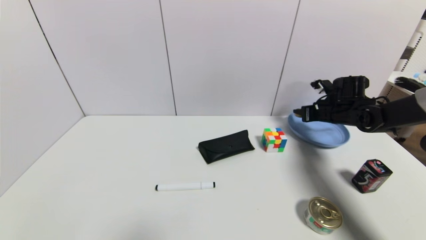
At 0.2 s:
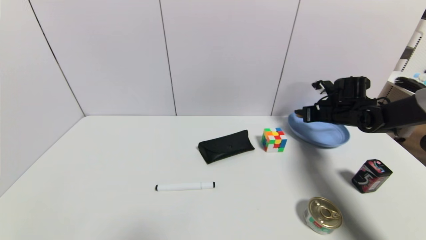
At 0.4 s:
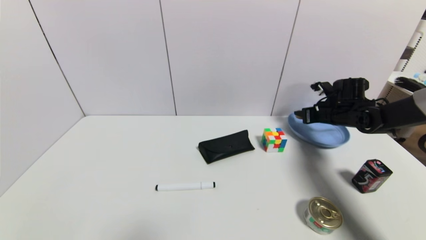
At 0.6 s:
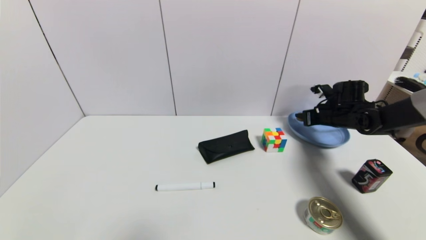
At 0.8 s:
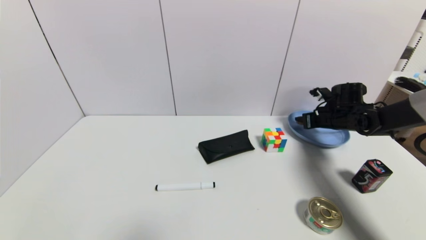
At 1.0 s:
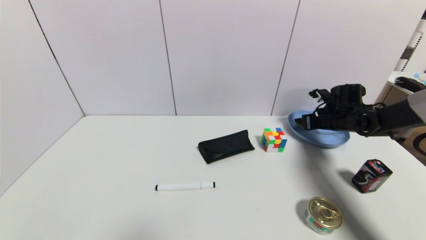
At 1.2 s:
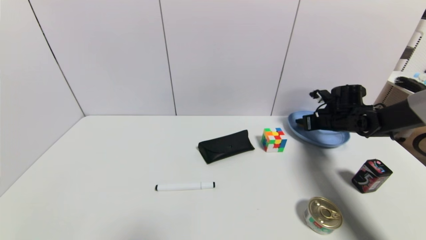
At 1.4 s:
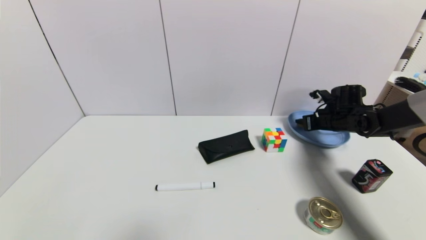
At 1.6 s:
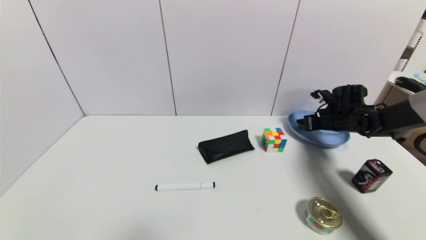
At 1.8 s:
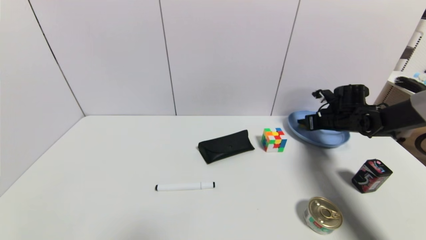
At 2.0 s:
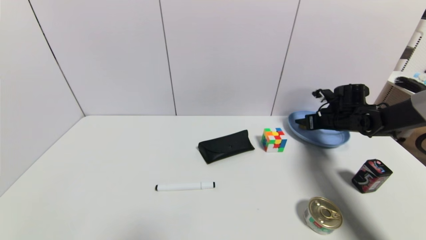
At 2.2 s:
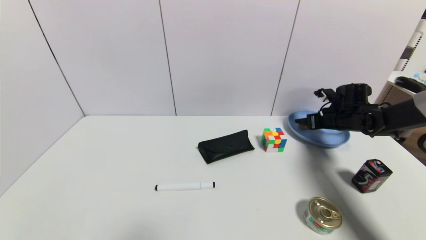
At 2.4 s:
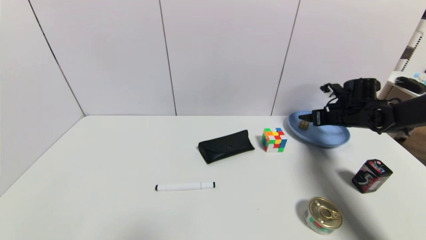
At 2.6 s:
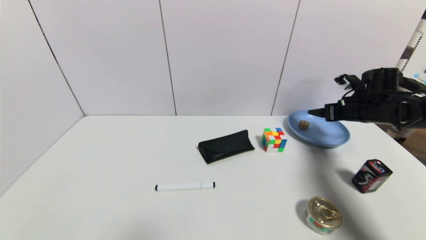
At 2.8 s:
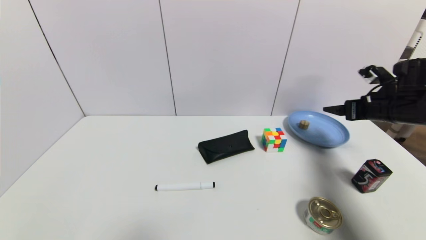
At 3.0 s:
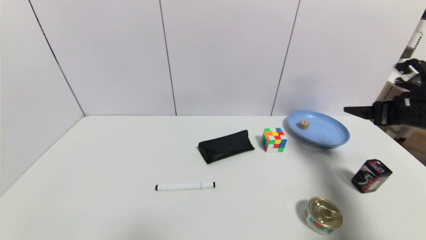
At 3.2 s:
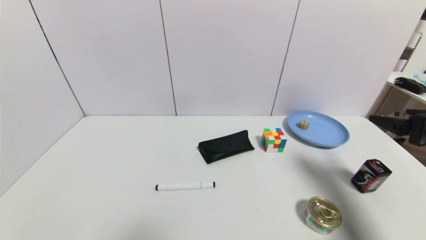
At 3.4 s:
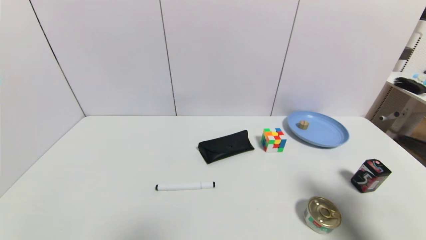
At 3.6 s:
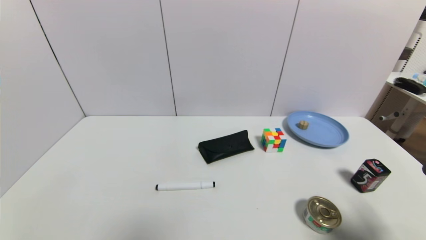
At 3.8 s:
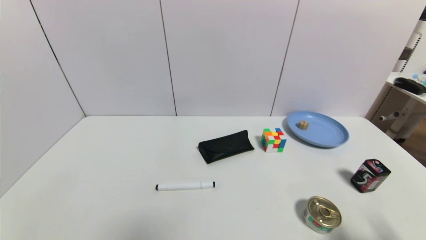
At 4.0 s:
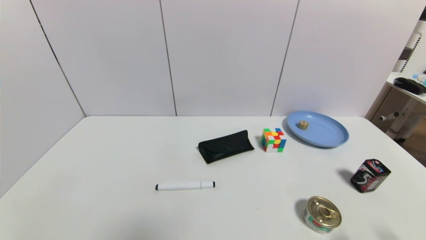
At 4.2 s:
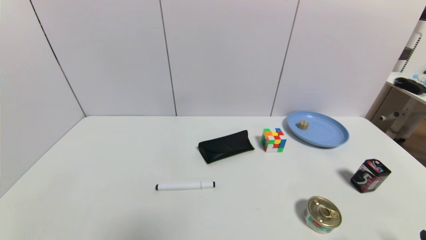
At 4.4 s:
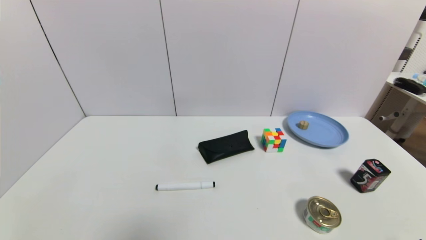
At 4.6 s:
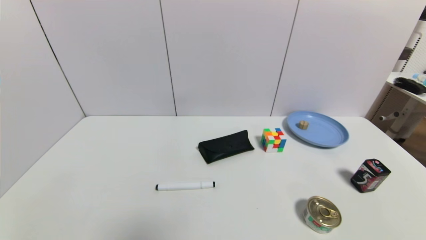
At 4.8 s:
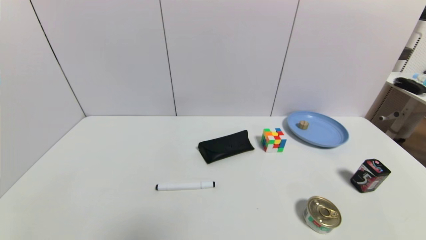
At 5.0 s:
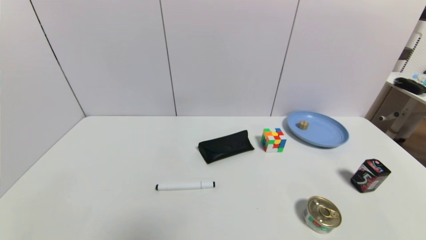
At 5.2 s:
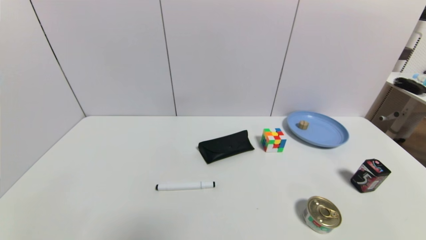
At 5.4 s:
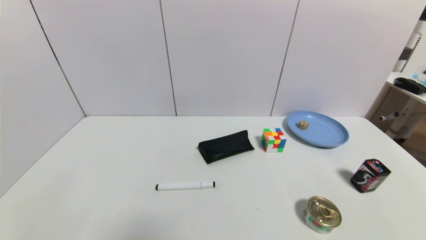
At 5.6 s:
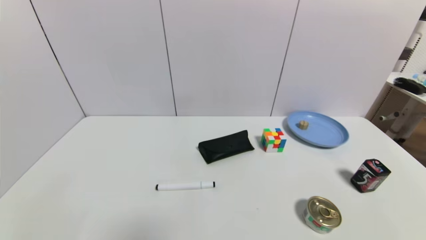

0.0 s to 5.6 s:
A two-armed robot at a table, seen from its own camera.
Task of the whole recording: use a gripper to pick the target object and place on the blue plate.
Step, 0.0 to 3.0 s: Place the round wooden block on the blue plate with the right gripper.
0.0 to 1.4 s: There are only small adjustments of the grippers.
1.4 to 2.8 s: The right gripper is displaced backward and upward by about 15 cm, and opens.
2.8 to 4.2 s: The right gripper travels backward by some 35 cm.

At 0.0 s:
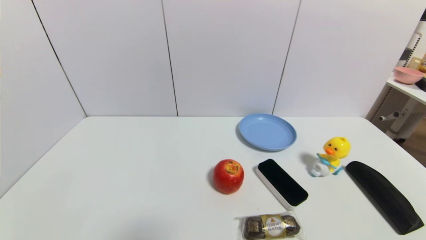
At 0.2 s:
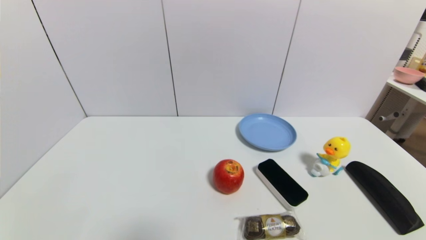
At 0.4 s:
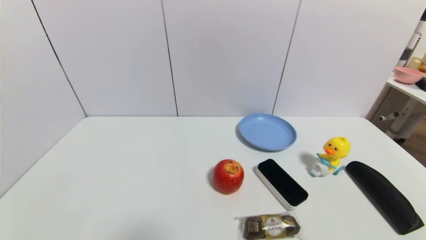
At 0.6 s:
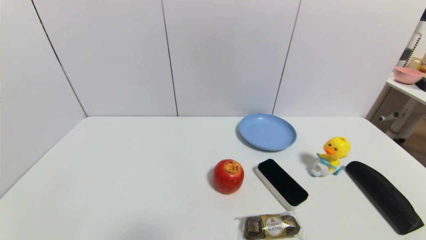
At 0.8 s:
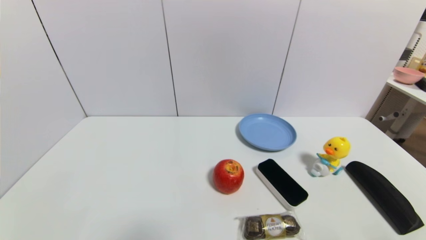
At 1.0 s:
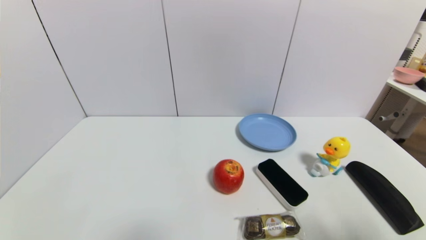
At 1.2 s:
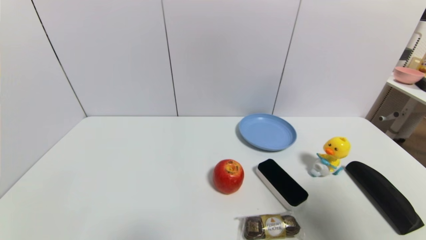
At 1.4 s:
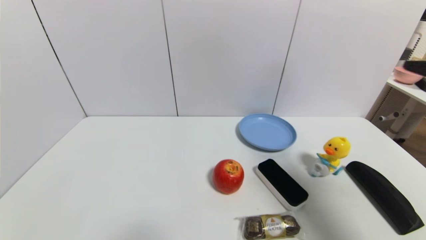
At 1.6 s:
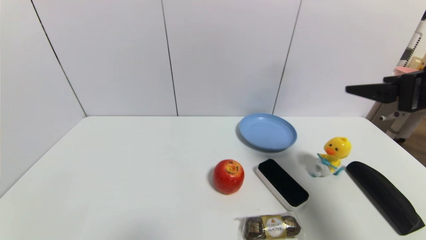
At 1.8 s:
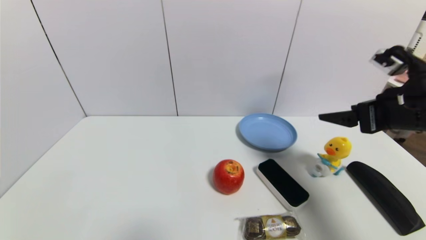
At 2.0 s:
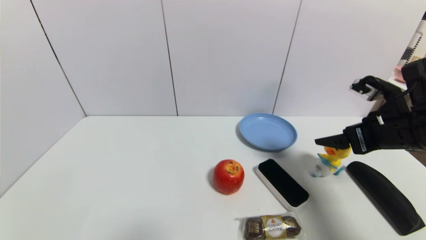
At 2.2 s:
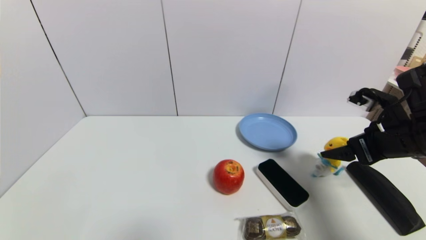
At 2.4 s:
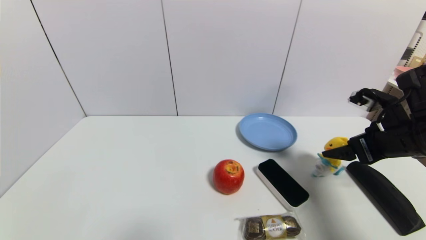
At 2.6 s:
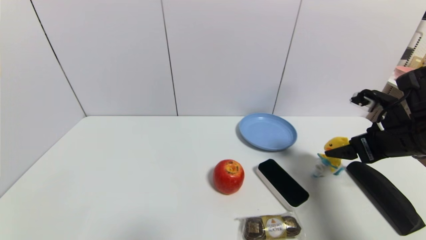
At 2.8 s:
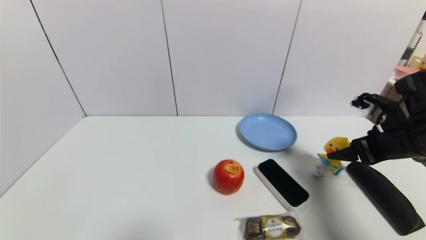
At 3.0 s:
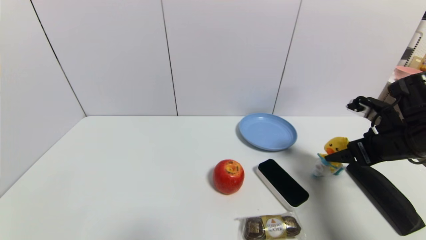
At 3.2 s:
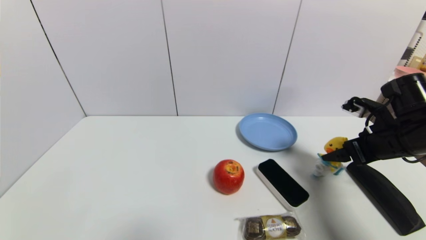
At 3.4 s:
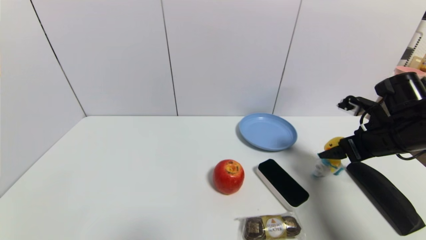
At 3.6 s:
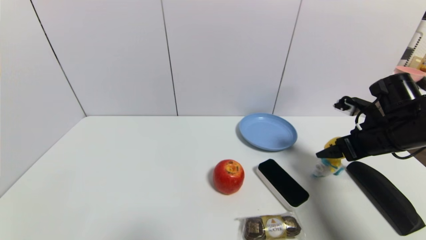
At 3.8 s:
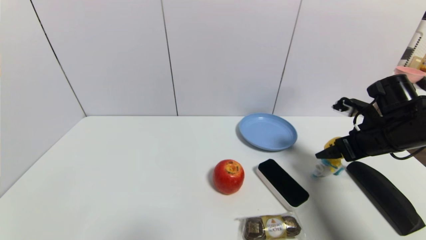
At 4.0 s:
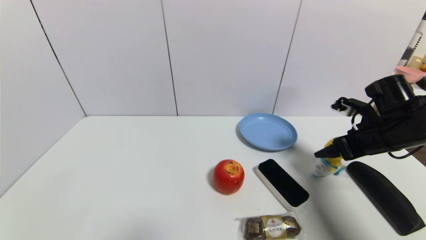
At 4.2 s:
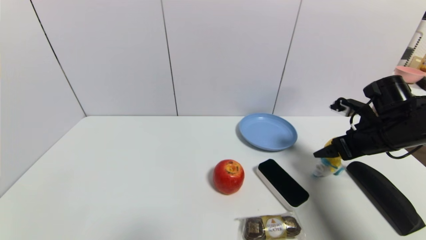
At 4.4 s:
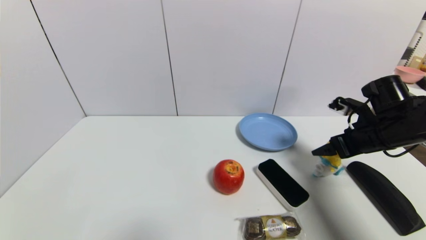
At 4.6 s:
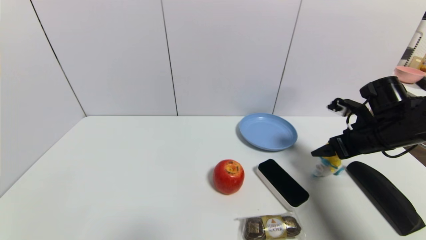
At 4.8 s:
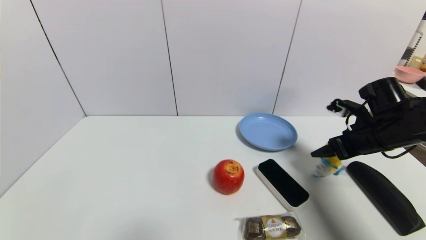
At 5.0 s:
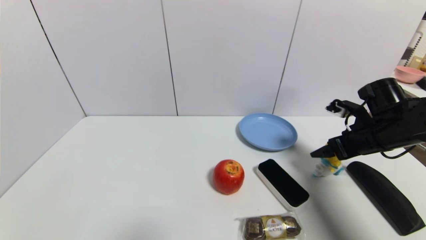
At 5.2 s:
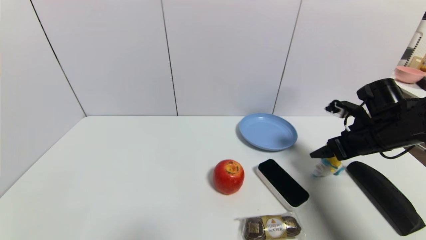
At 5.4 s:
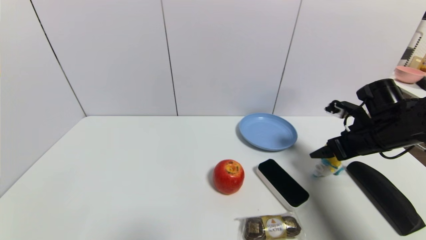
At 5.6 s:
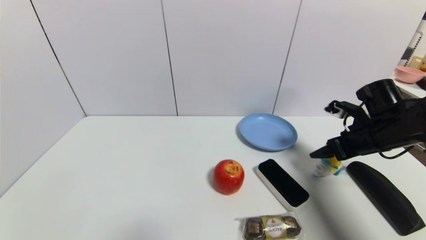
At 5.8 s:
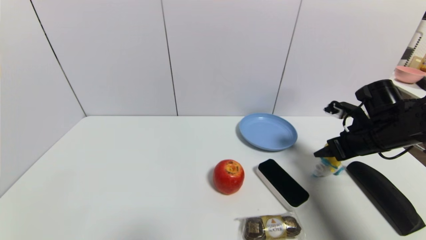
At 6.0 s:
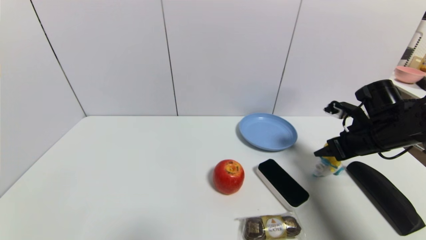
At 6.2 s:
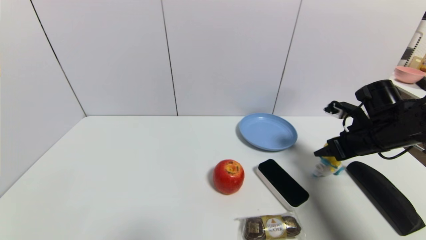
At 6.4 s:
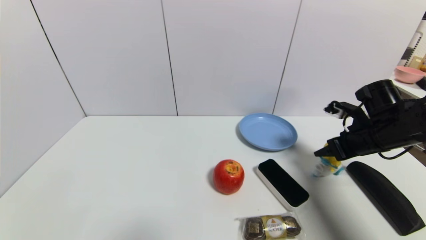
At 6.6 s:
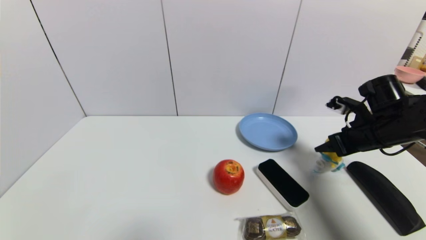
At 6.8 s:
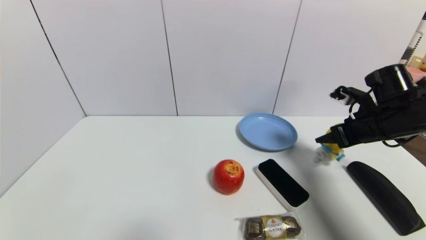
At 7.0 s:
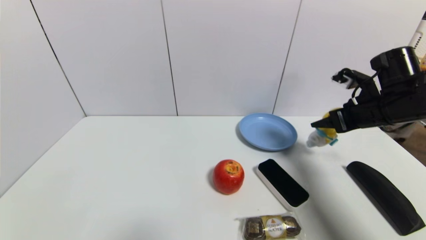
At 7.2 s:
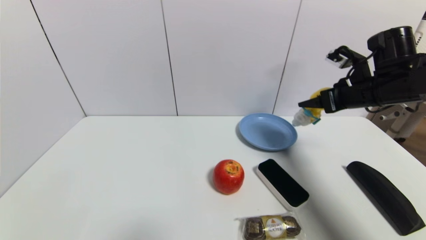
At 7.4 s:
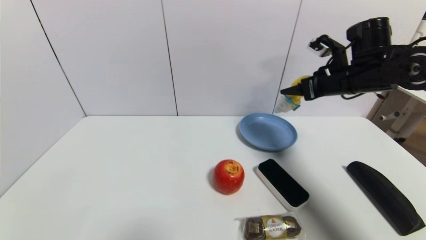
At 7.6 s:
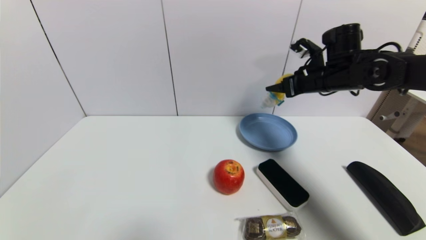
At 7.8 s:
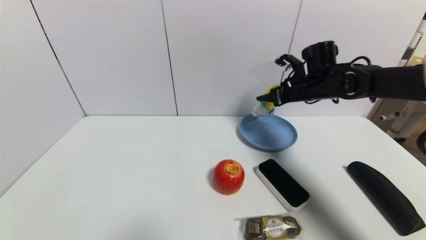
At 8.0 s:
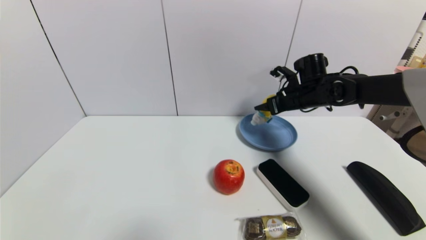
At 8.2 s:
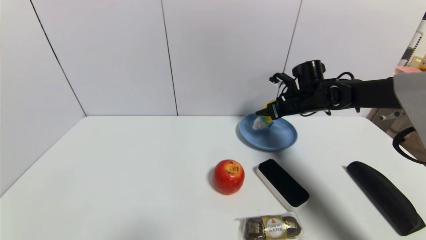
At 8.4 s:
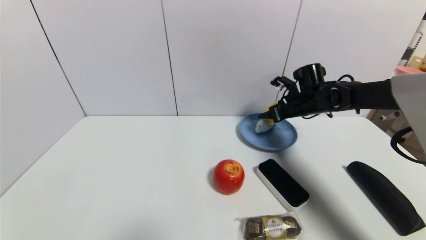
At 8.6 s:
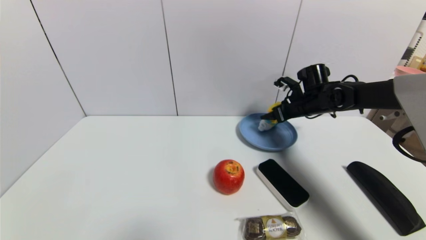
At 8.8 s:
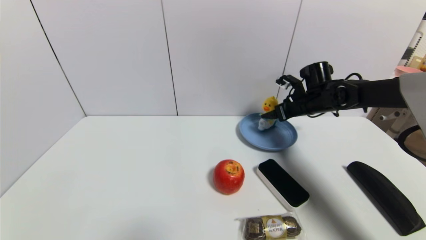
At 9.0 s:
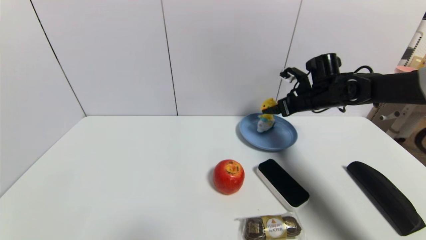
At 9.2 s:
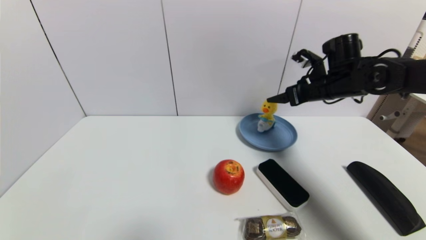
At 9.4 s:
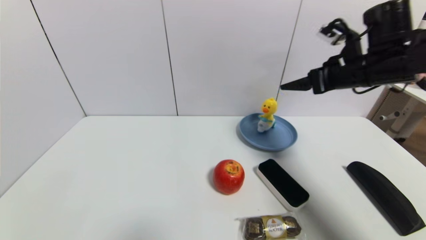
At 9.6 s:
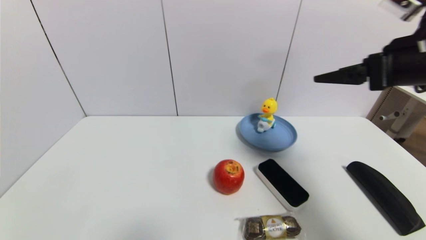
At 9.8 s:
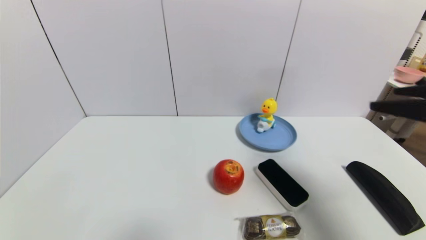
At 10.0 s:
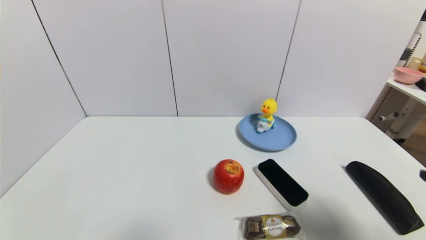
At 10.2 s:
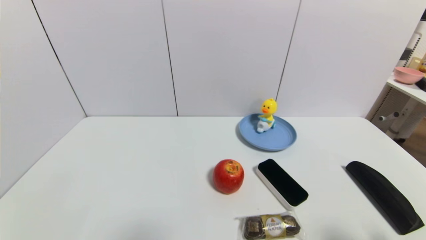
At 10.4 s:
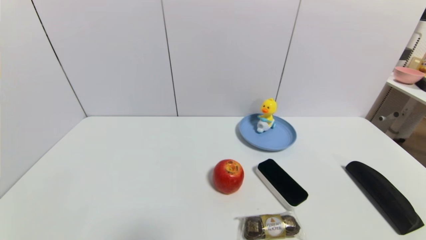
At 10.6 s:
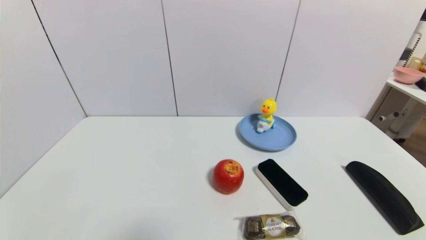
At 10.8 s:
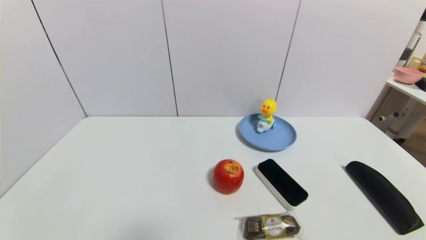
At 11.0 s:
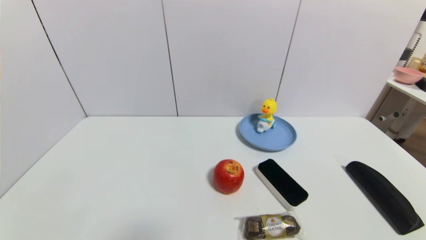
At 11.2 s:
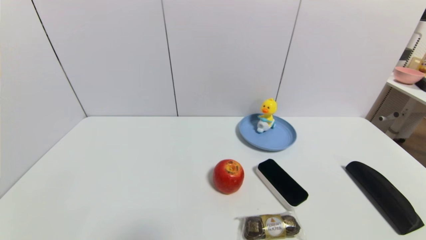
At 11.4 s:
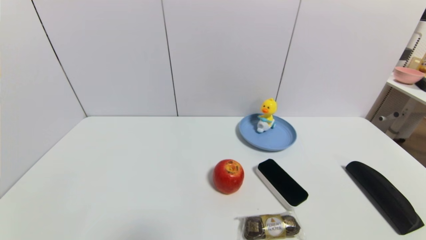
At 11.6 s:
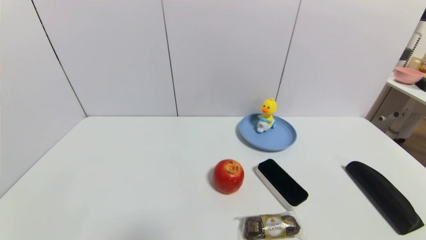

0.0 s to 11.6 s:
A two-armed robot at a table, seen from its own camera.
Task of the whole recording: use a gripper to pick the target object and place on the blue plate.
Step, 0.0 to 6.0 s: Grasp the duck toy with the right gripper.
Step, 6.2 to 8.8 s: Place the duck toy on the blue plate with the right gripper.
0.0 to 1.4 s: The right gripper travels upward and forward by roughly 30 cm.
1.4 to 2.8 s: The right gripper heads downward and forward, covering some 15 cm.
2.8 to 4.4 s: The right gripper changes place by roughly 5 cm.
4.4 to 5.8 s: The right gripper closes its fingers.
5.8 to 7.2 s: The right gripper moves upward, some 10 cm.
7.2 to 8.8 s: The right gripper travels forward and downward by some 15 cm, and opens.
8.8 to 10.2 s: The right gripper travels backward by roughly 40 cm, and opens its fingers.
